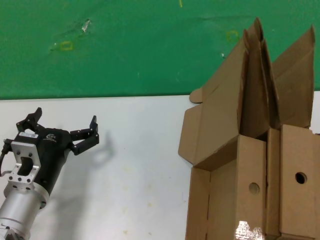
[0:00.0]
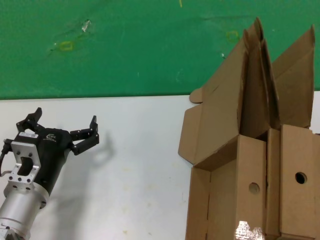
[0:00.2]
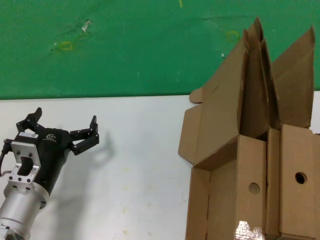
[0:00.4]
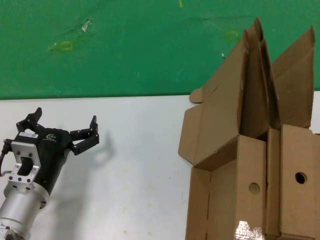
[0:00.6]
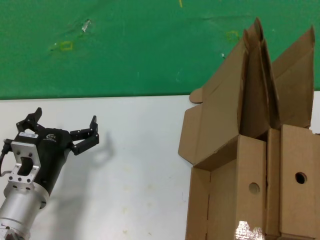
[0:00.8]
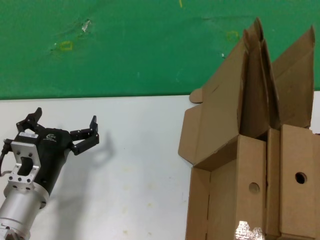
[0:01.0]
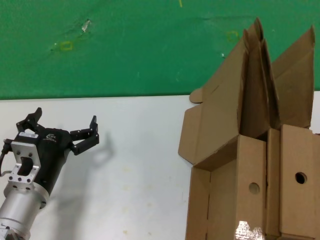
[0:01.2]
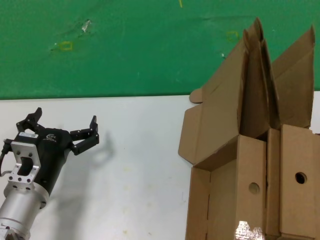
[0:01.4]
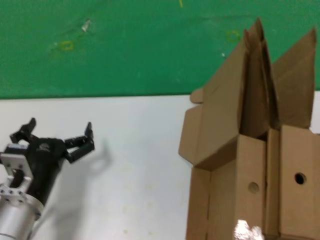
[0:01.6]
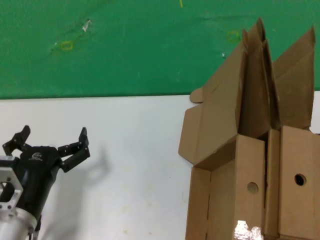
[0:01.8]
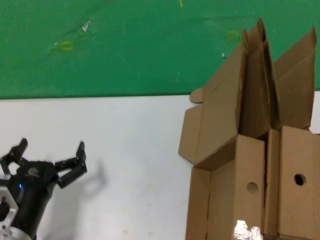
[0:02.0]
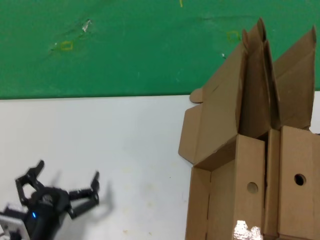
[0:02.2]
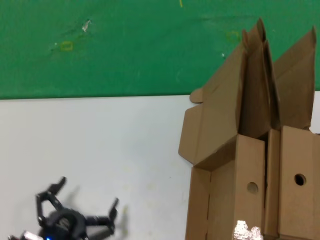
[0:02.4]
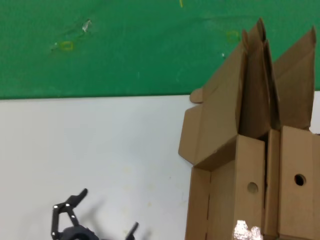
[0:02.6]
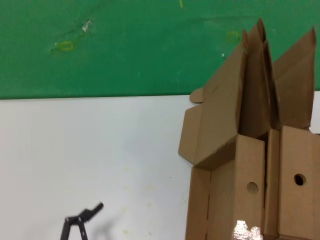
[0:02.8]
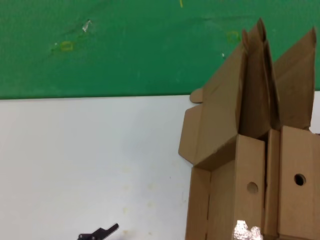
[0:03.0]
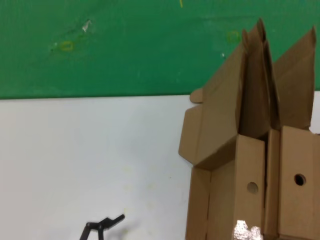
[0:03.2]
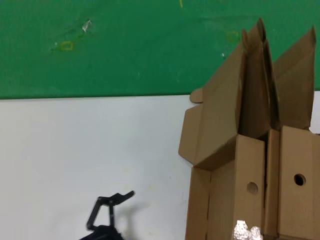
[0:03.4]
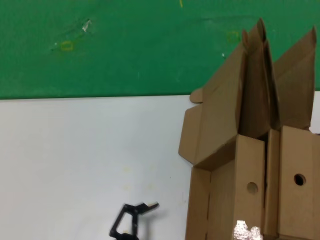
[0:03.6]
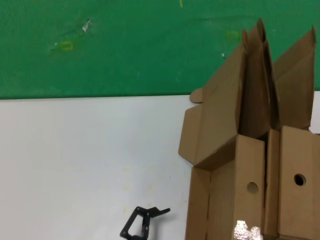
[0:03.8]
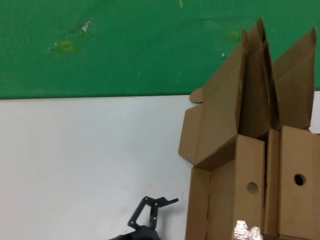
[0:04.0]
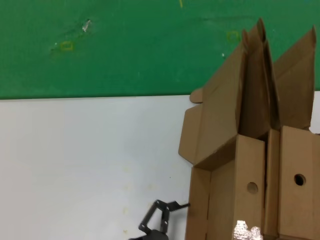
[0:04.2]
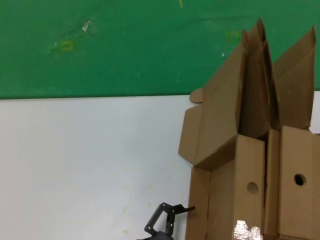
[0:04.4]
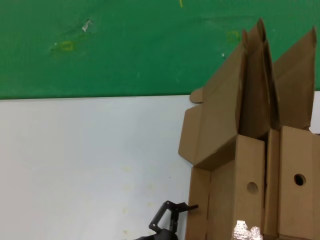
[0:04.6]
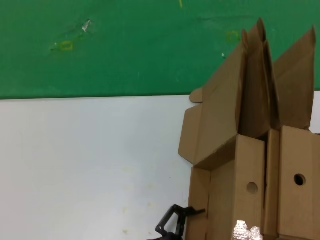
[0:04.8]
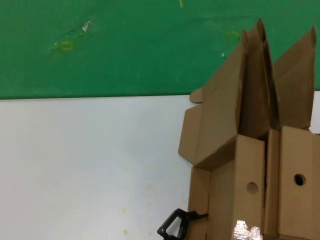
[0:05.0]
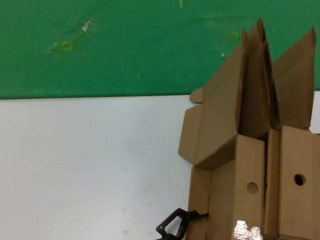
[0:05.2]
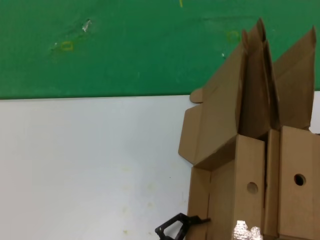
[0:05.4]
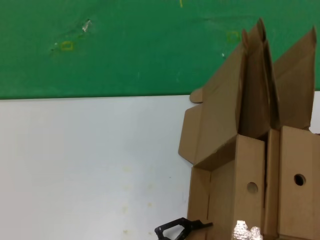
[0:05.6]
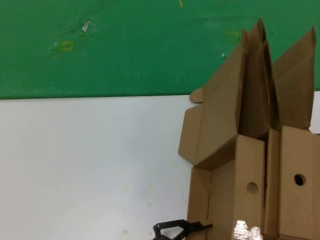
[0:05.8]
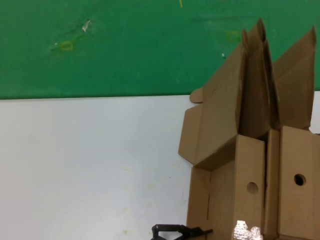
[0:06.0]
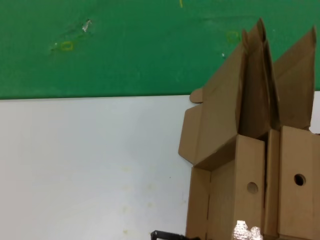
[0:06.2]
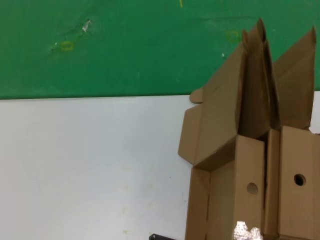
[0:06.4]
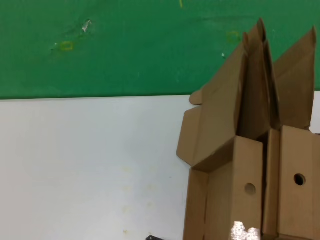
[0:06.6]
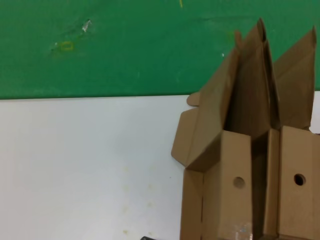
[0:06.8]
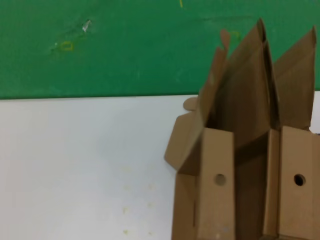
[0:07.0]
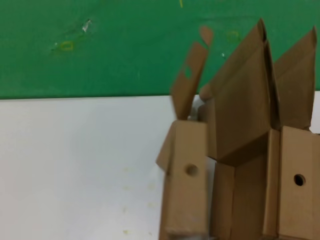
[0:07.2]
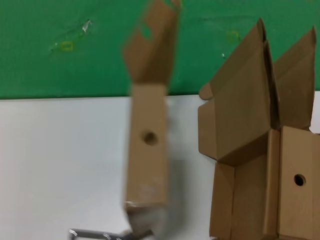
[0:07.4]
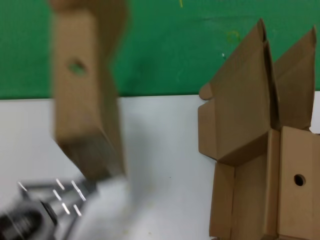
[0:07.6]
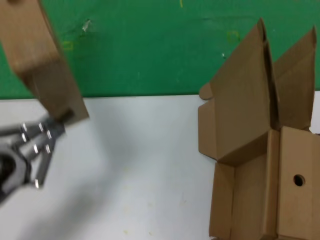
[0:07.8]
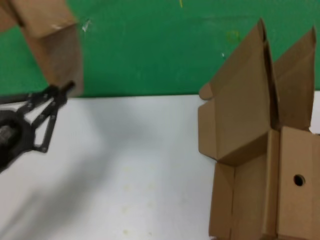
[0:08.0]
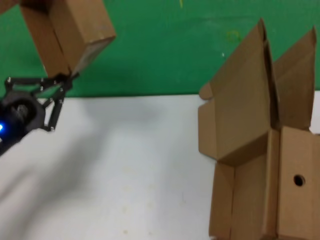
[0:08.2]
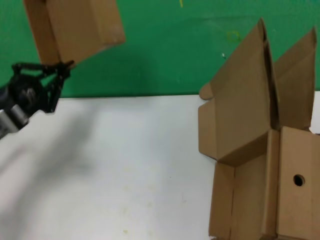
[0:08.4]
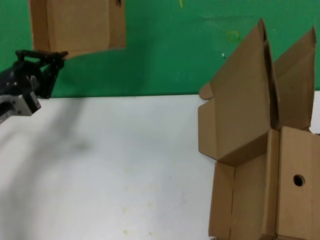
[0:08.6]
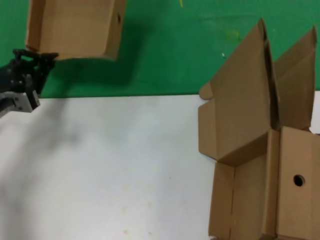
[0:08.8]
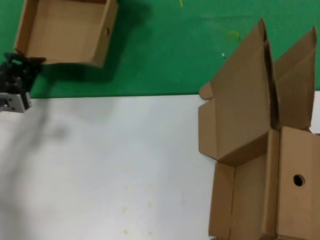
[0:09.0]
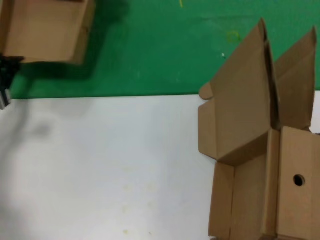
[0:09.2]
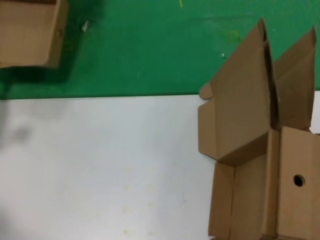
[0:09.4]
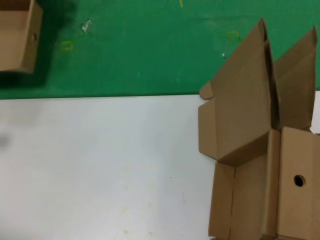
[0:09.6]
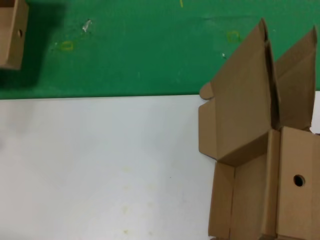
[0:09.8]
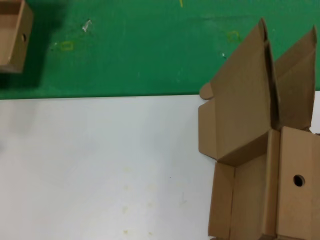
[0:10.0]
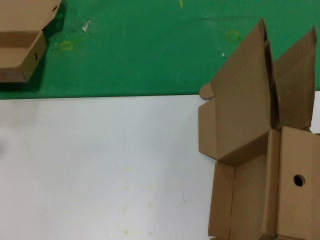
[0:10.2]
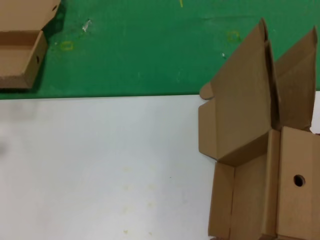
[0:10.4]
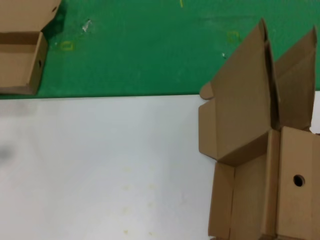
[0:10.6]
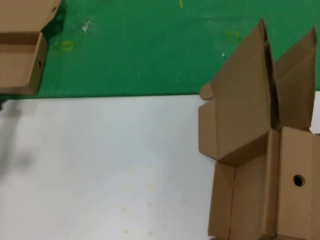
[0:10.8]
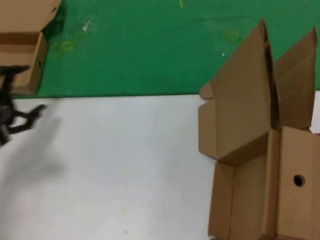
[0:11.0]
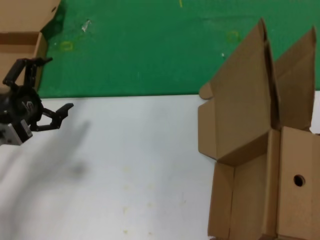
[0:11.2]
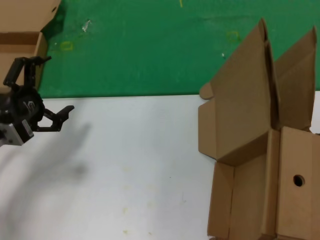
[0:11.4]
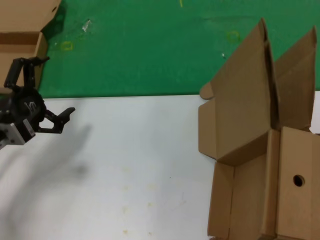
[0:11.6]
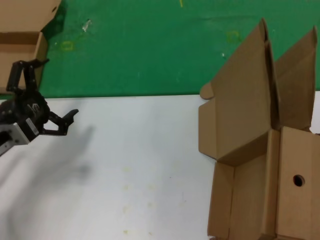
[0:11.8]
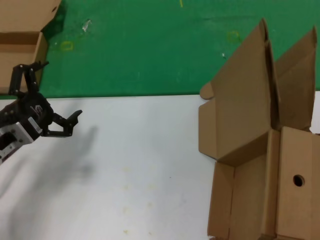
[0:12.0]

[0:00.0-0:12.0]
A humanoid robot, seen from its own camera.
Task of the whole recording: pick up the paper box and put it at the back.
Step, 0:00.0 to 0:06.4: Grasp the paper box.
Step, 0:06.6 to 0:10.6: Place the paper box on the table.
0:00.0 to 0:01.6: The hands stay close to where they were, moving slightly.
0:01.6 to 0:03.0: The left hand goes roughly 20 cm backward and downward.
0:03.0 to 0:04.4: The left hand moves forward and to the right, about 15 cm.
0:04.4 to 0:06.0: The hands make only small movements.
0:06.0 to 0:07.6: The left hand moves to the left, upward and backward, about 20 cm.
0:07.6 to 0:09.0: The left hand goes roughly 30 cm forward.
0:09.0 to 0:10.4: The left hand travels to the left and backward by roughly 15 cm.
0:10.4 to 0:12.0: The left hand is displaced to the right by roughly 20 cm.

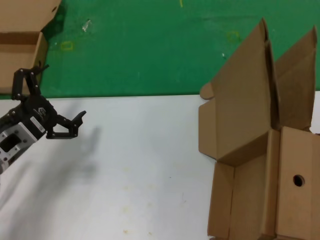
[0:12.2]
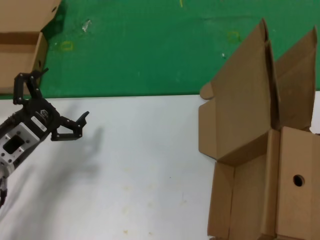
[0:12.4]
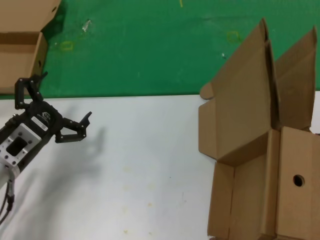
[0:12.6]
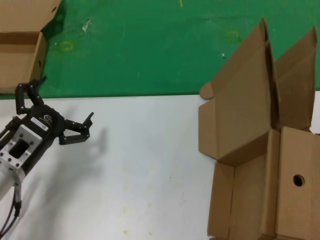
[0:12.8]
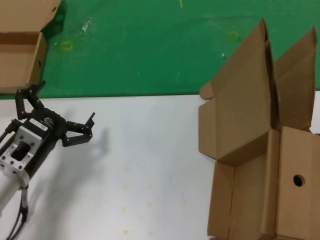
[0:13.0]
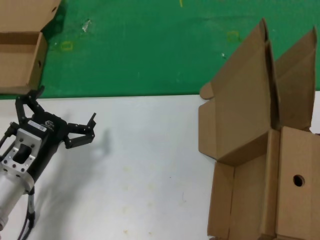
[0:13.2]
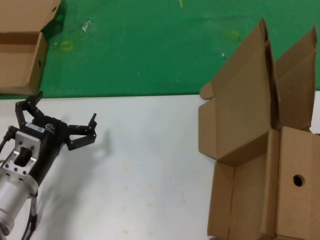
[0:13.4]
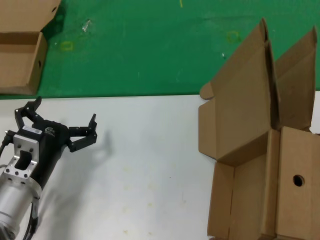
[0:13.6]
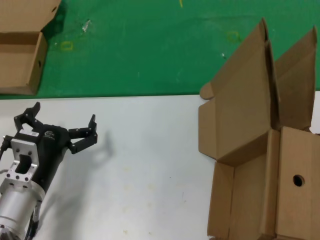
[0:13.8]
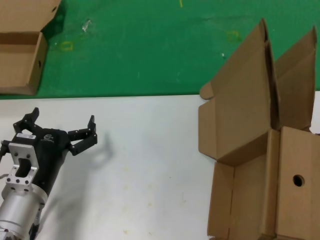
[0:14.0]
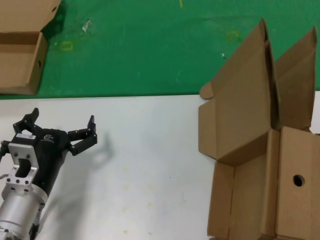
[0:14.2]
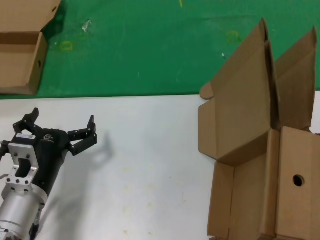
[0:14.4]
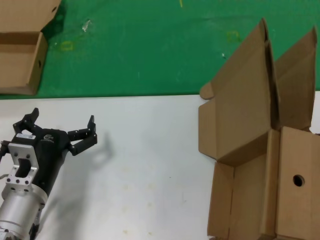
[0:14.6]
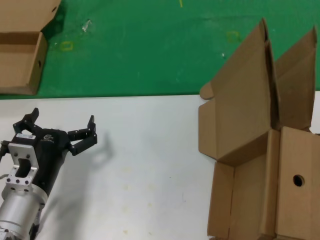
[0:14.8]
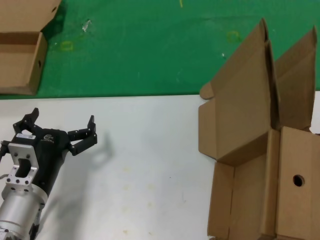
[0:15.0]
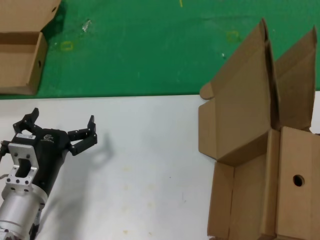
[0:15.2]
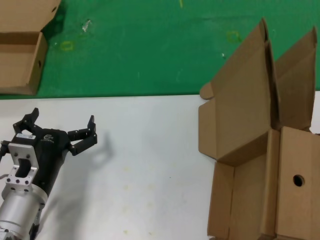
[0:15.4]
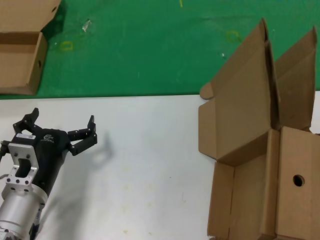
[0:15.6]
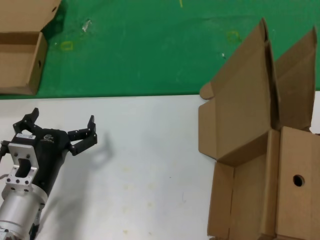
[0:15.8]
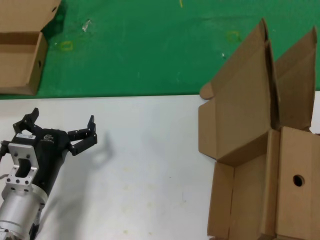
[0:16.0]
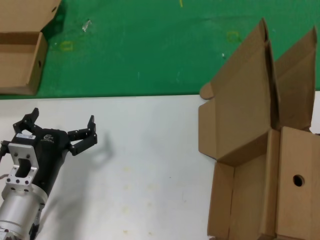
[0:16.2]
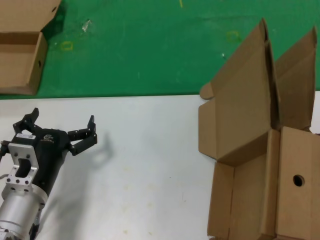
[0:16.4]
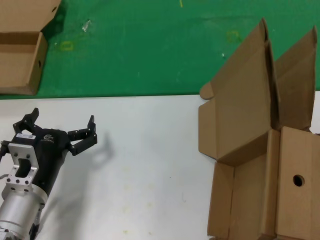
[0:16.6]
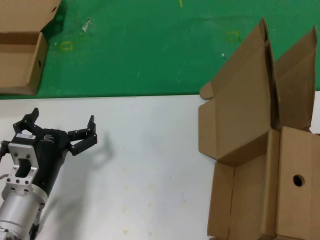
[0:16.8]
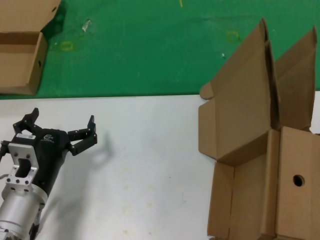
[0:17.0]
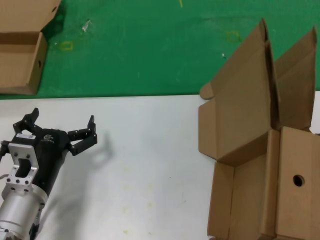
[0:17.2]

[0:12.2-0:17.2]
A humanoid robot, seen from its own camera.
Task of the whole recording: pick up the paper box and put it at the back.
0:12.2 to 0:13.8: The left hand travels to the right and downward by some 10 cm.
0:13.8 to 0:15.6: The hands stay close to where they were, moving slightly.
0:15.6 to 0:17.2: Both hands stay put.

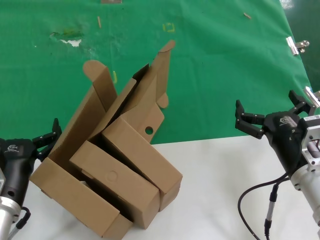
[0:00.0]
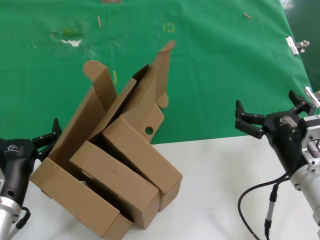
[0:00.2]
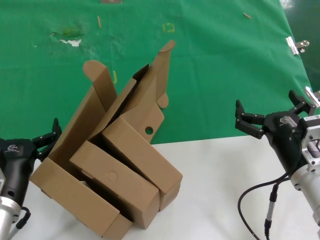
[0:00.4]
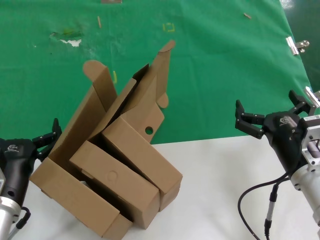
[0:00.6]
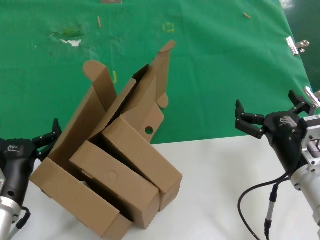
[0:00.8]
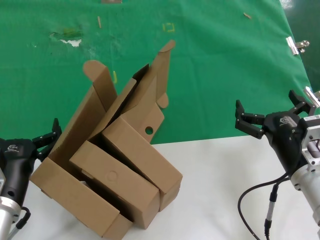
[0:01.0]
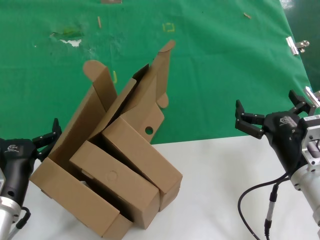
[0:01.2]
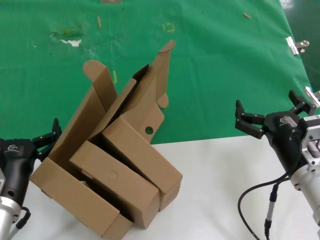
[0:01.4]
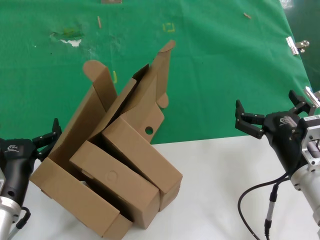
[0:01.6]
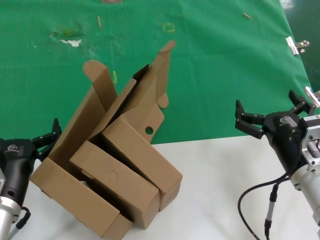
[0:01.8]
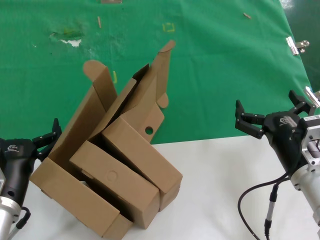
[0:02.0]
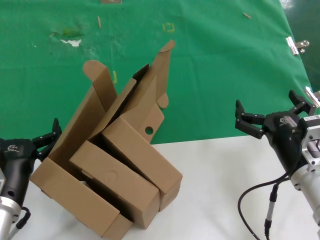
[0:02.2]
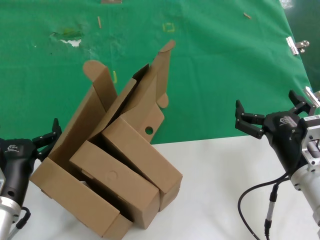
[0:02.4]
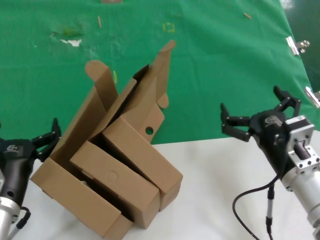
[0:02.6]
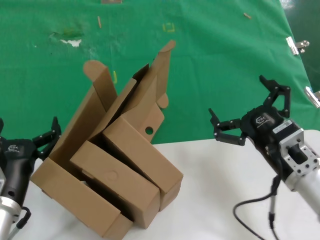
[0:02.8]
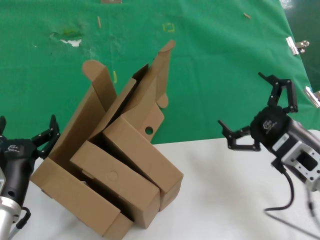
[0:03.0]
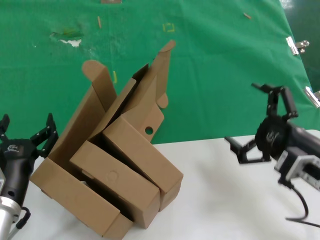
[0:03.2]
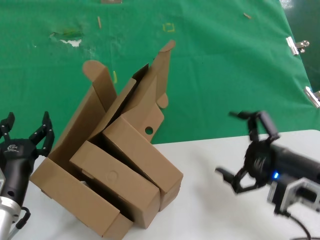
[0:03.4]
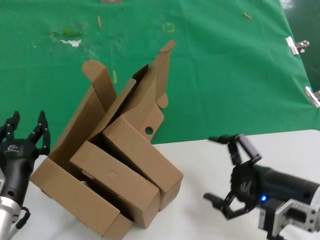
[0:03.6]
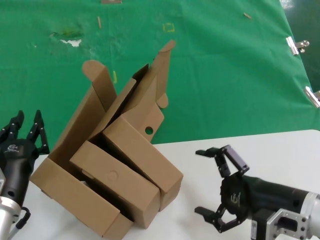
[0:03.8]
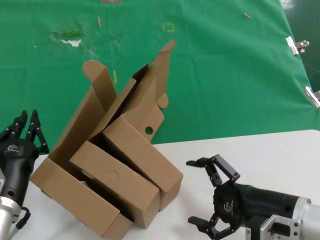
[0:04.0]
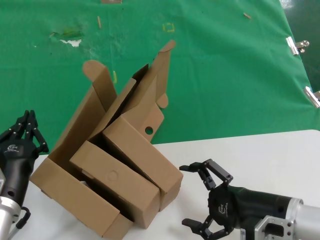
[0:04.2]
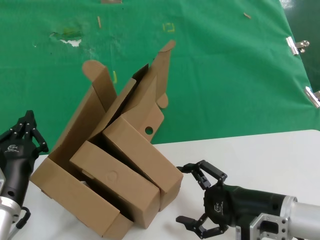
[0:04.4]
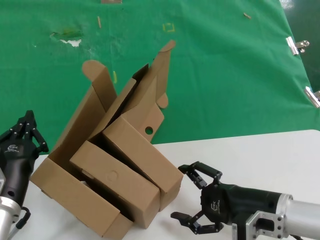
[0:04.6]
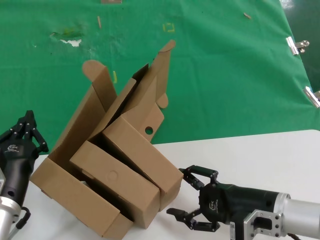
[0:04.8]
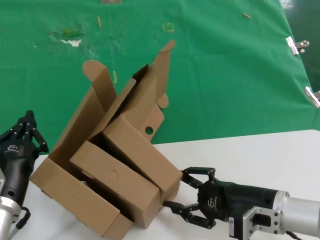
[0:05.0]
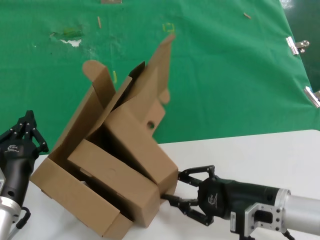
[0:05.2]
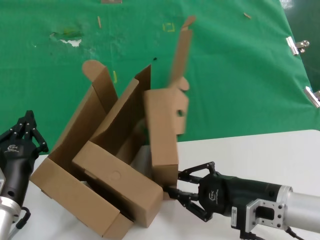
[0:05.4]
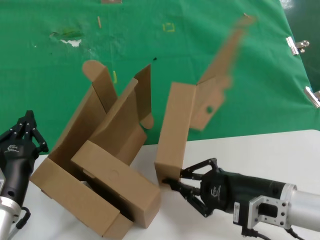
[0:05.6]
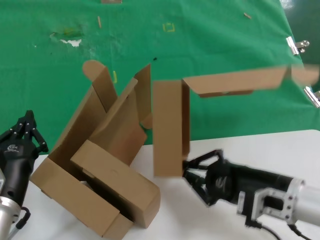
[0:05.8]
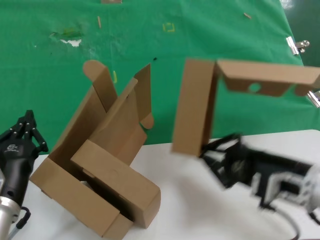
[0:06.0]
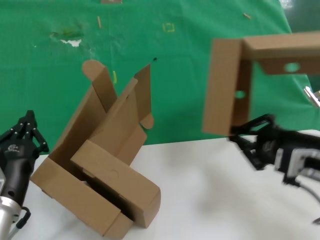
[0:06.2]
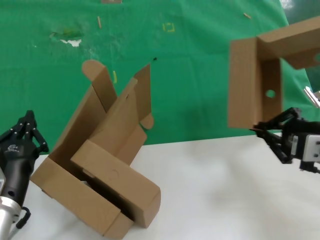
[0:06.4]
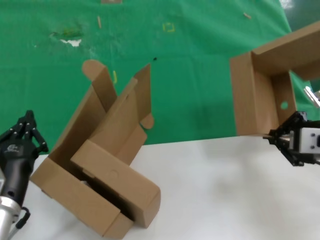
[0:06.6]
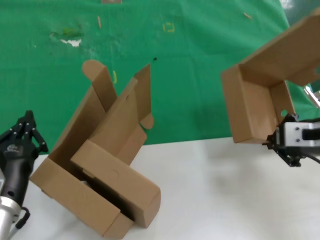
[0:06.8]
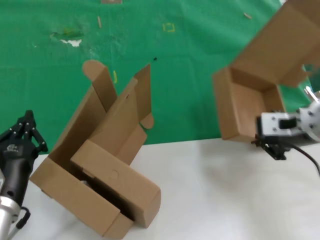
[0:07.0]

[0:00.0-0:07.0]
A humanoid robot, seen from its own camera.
Task of the whole recording: pick up the paper box and put it at the back.
Step, 0:00.0 to 0:05.6: Grasp the paper box.
0:00.0 to 0:01.4: The two hands keep their place.
0:04.2 to 0:05.6: The hands make only small movements.
0:05.6 to 0:07.0: The right hand moves upward and forward, roughly 15 cm.
